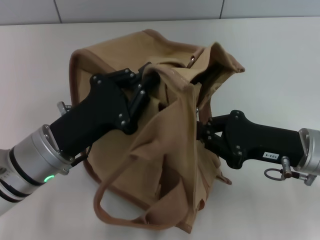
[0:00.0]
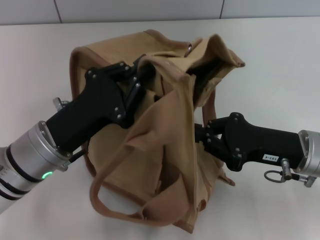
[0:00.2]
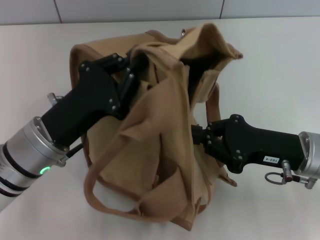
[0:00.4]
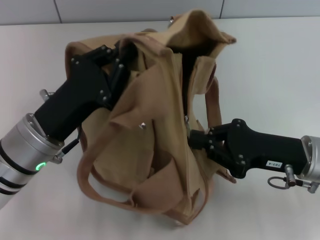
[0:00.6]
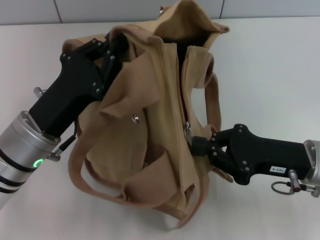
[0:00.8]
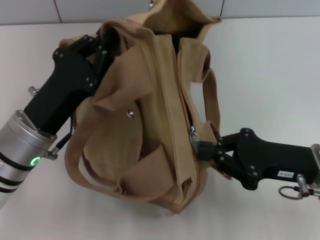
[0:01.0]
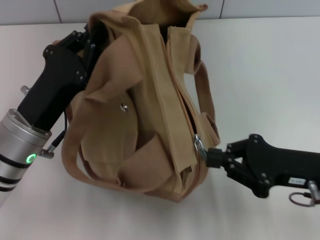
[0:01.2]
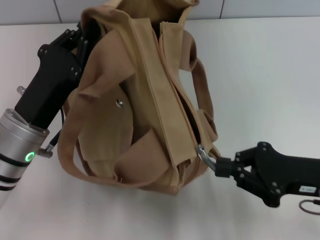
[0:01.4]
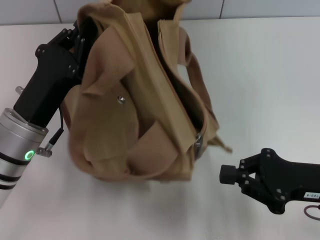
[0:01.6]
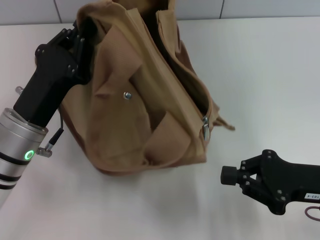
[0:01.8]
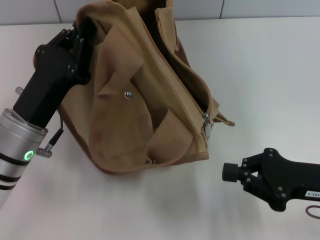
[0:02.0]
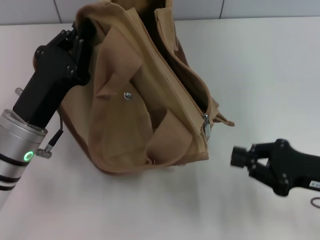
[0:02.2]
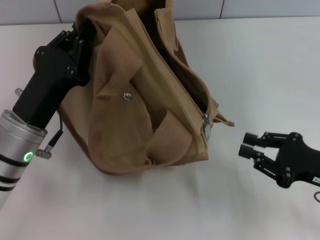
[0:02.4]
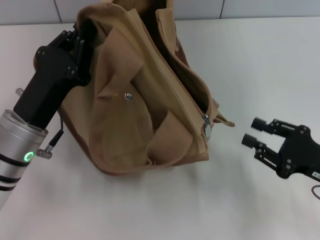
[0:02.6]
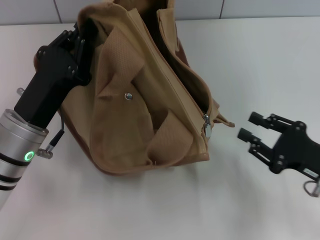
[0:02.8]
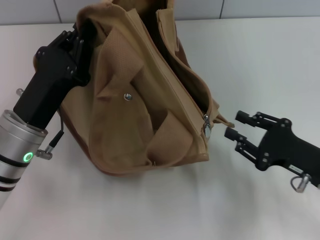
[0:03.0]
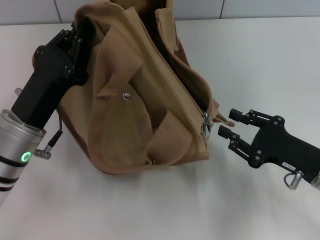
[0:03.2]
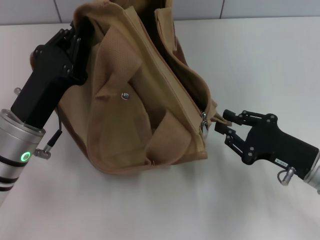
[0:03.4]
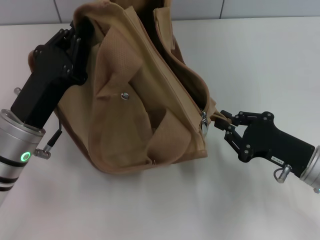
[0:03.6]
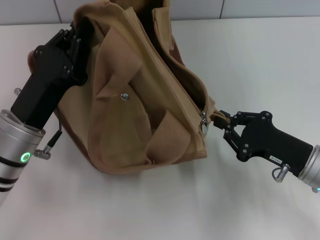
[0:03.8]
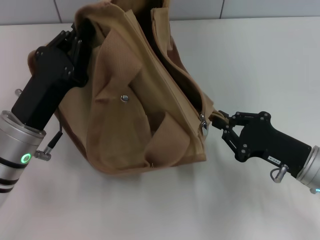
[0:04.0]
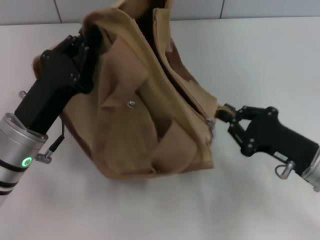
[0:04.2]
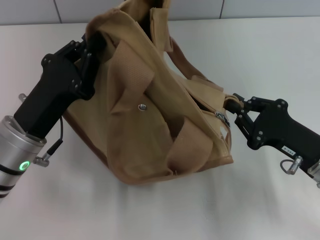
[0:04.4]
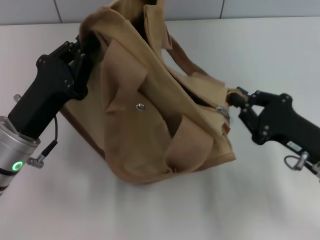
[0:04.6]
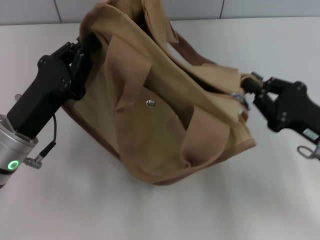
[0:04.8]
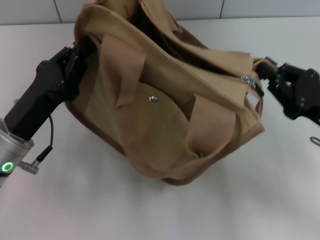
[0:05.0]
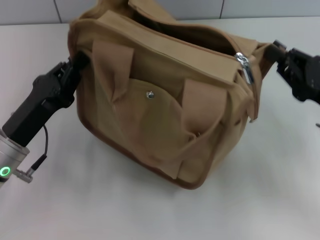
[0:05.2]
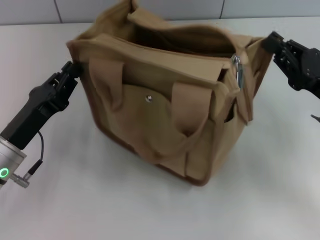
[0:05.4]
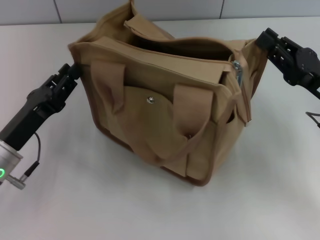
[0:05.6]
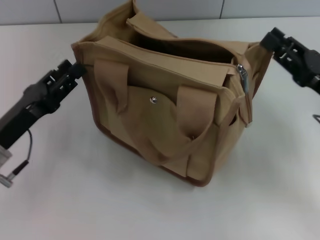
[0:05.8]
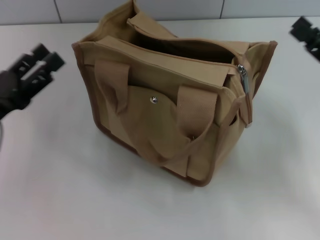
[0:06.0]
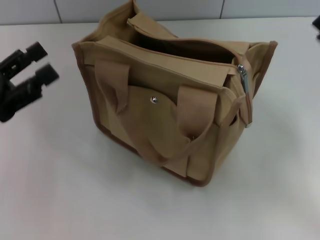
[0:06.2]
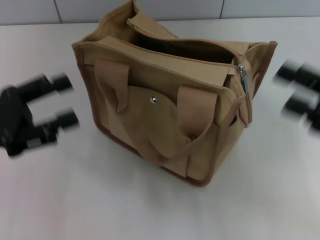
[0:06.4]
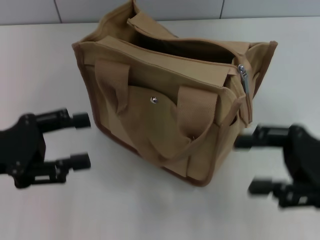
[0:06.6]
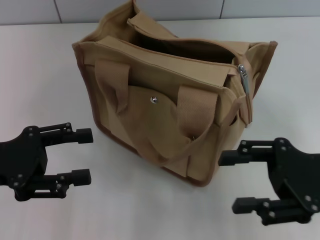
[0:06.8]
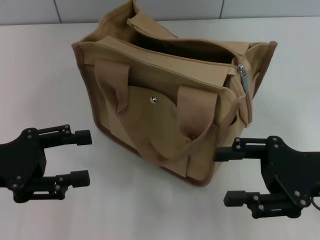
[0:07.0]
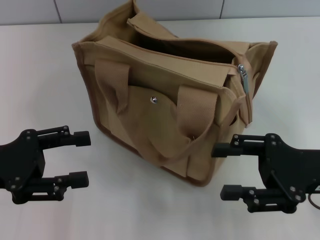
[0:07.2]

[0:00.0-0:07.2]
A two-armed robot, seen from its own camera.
Step, 0:01.8 to 0:05.6: Grab the bag with your left hand.
0:01.4 to 0:02.8: The right gripper opens up.
0:02.8 to 0:04.4: The right gripper closes.
0:04.4 to 0:05.8: The left gripper heads to the left, covering roughly 5 cm, and opens. Meanwhile the right gripper changes place by about 5 cm.
0:05.8 to 0:07.2: The left gripper heads upward, covering roughly 5 cm, and opens. The right gripper ends up roughly 5 cm from where it was, and opens up.
